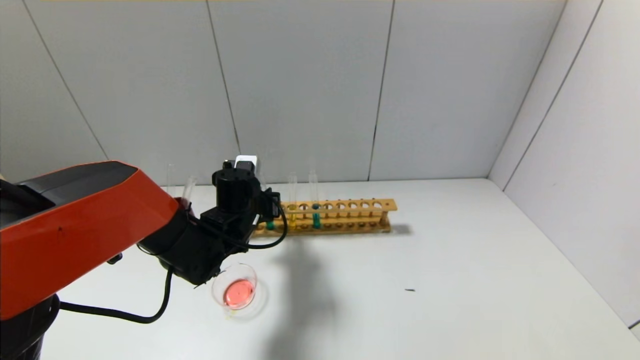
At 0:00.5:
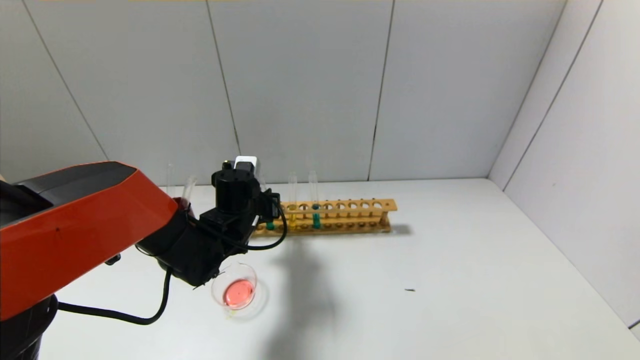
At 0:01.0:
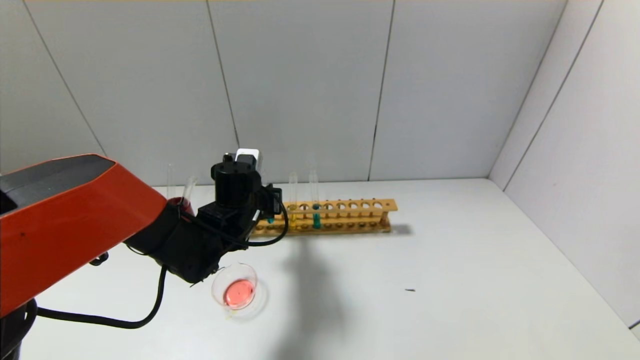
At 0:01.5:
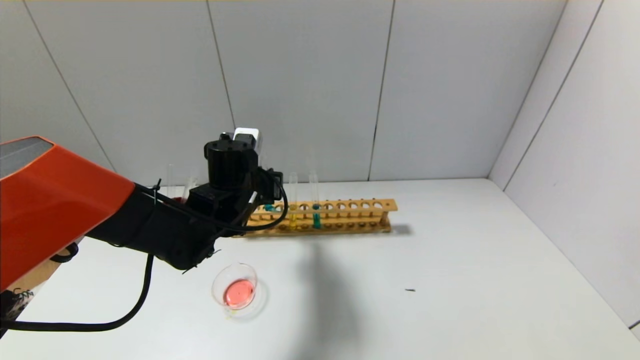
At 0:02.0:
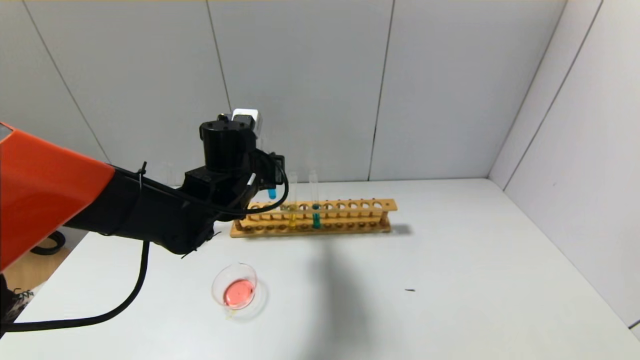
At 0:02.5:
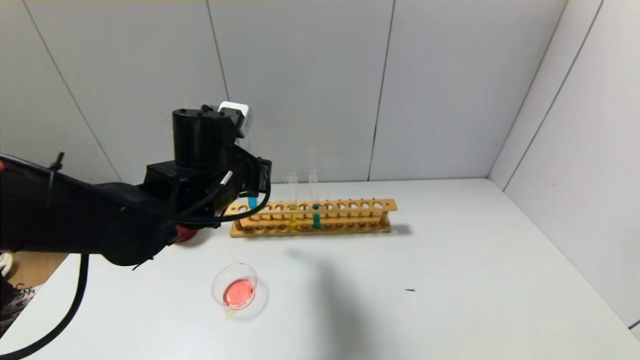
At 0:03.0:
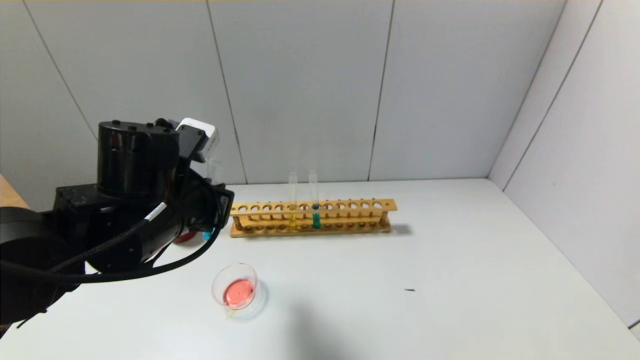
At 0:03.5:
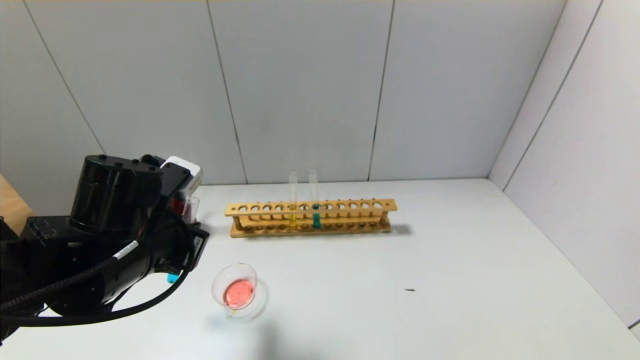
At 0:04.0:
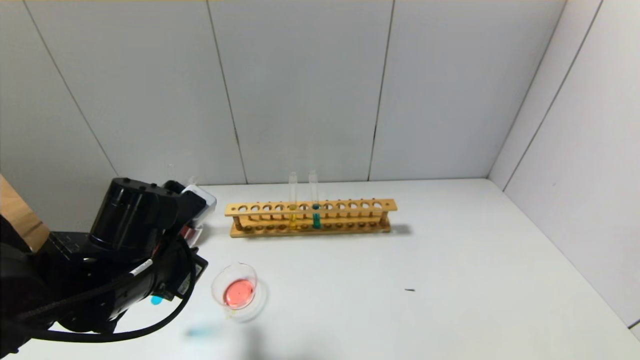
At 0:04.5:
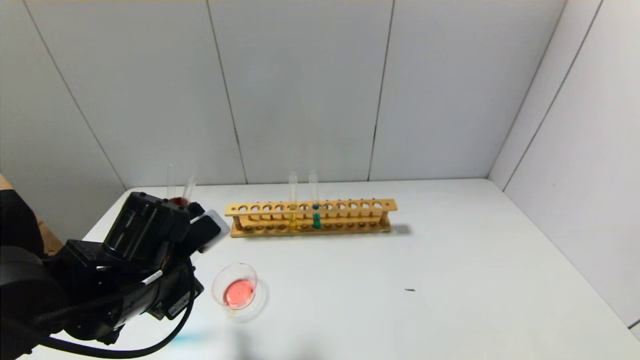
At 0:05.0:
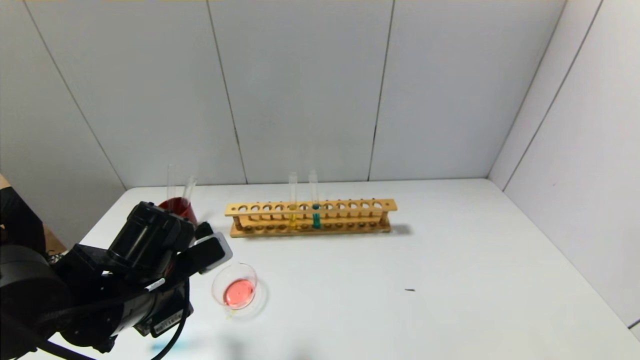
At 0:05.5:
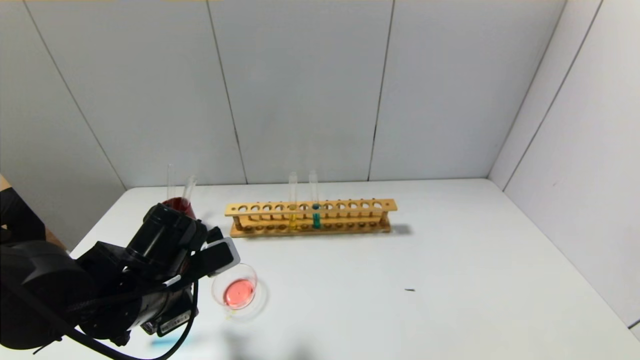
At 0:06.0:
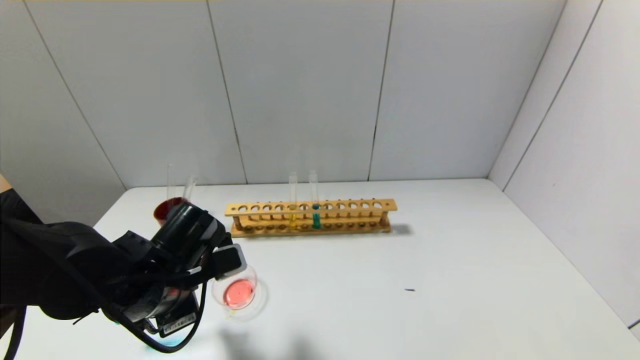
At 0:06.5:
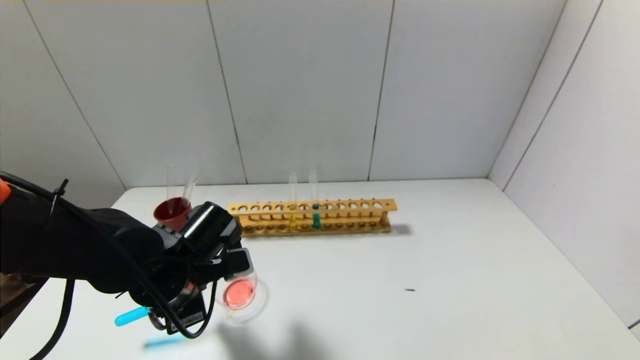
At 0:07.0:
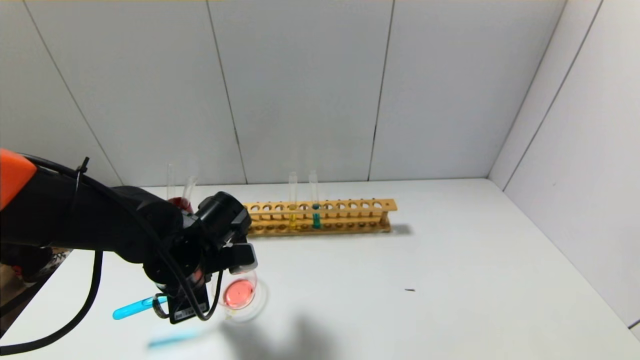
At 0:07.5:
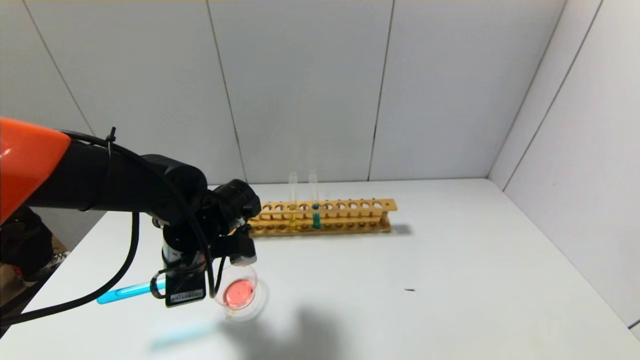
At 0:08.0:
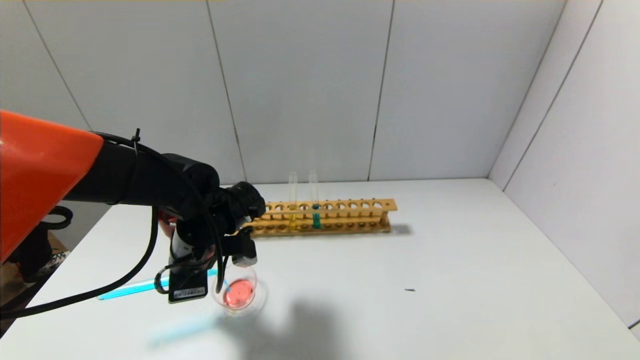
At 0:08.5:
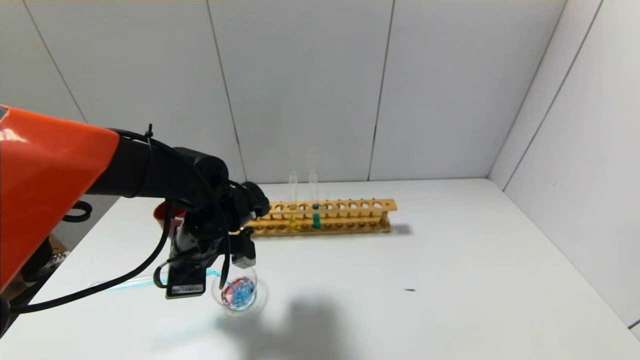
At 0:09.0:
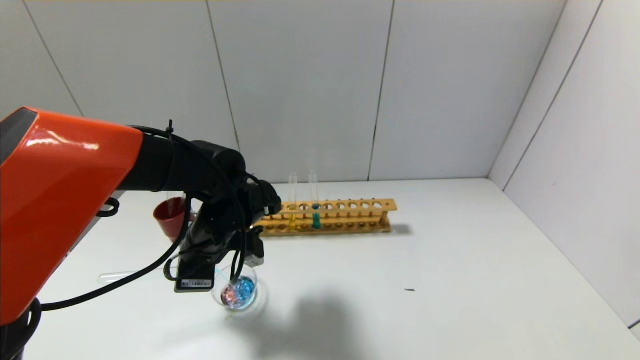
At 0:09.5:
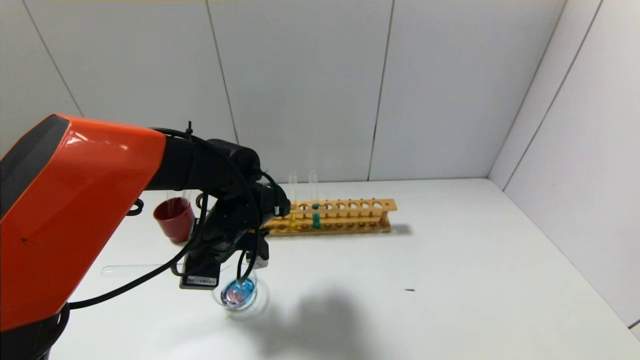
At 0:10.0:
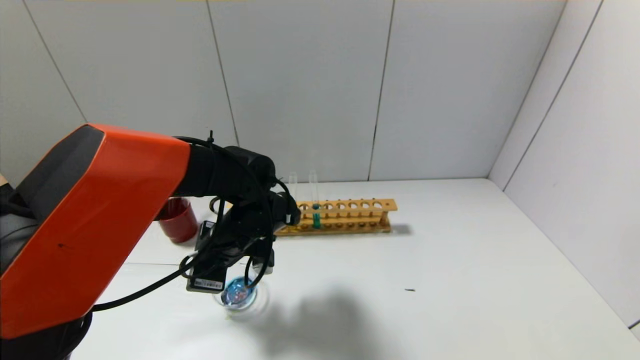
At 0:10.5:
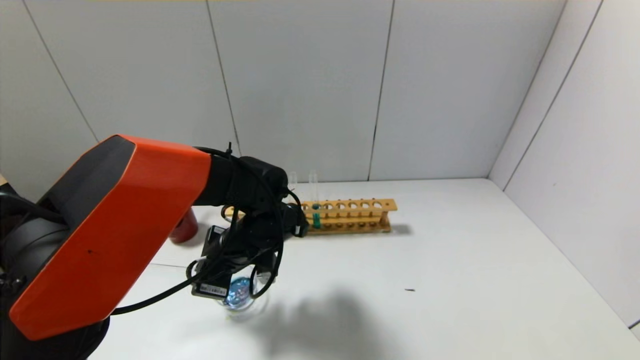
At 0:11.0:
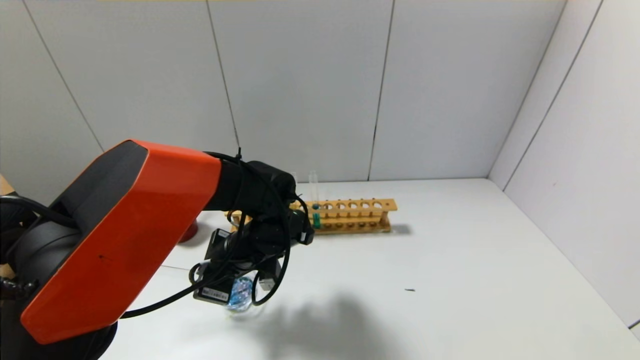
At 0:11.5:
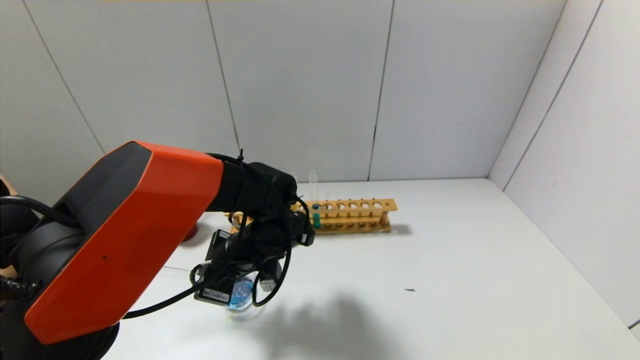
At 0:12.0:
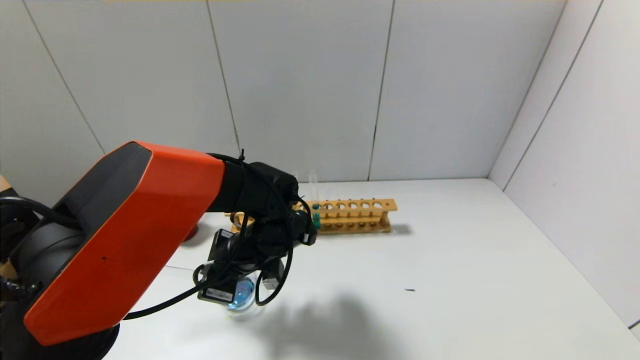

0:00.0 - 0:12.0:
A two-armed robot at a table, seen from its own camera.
0:00.0 - 0:02.0: The left gripper moves upward, roughly 10 cm.
0:02.0 - 0:04.0: The left gripper is displaced backward and to the left by approximately 15 cm.
0:06.0 - 0:08.0: The left gripper is displaced forward by roughly 5 cm.
0:10.0 - 0:12.0: The grippers move only a little.

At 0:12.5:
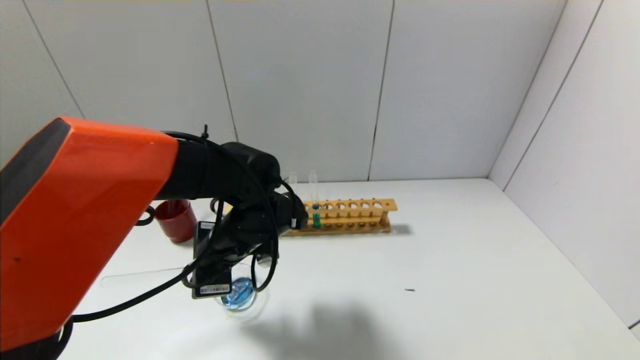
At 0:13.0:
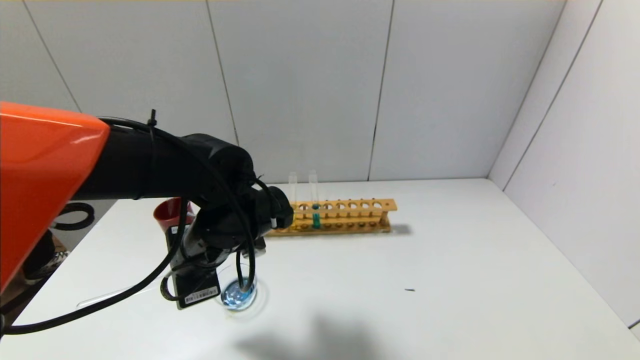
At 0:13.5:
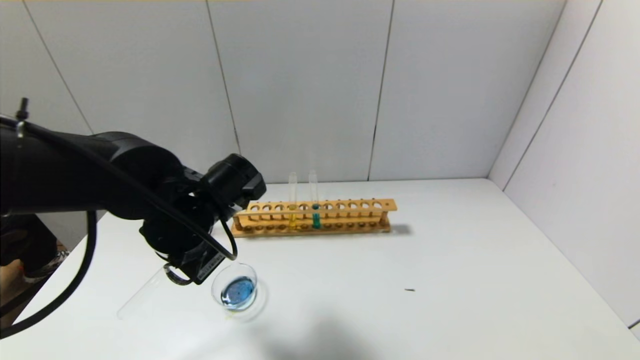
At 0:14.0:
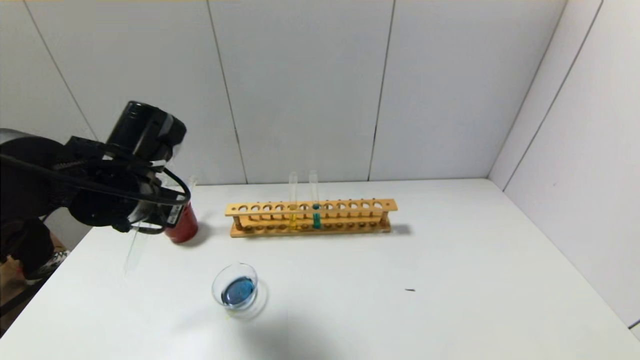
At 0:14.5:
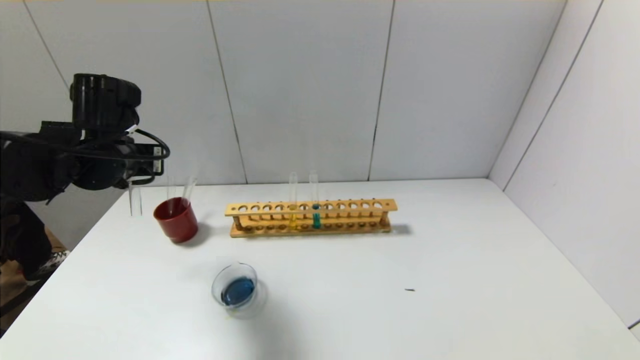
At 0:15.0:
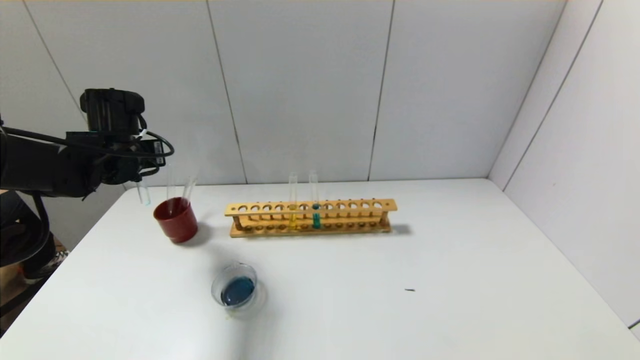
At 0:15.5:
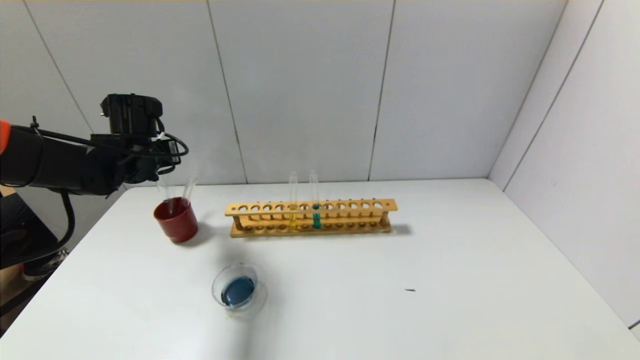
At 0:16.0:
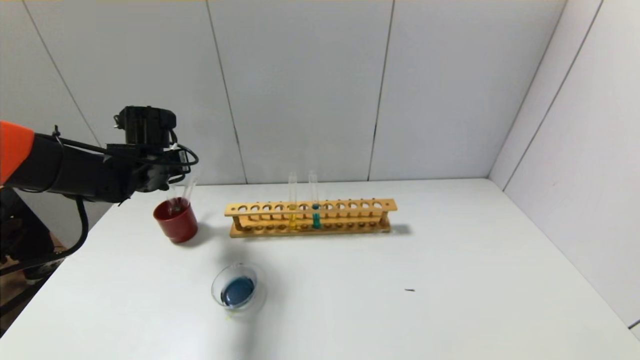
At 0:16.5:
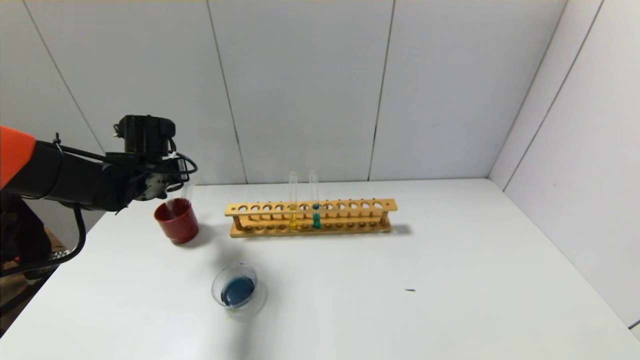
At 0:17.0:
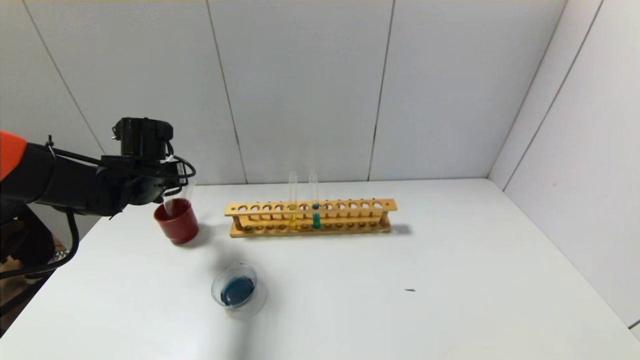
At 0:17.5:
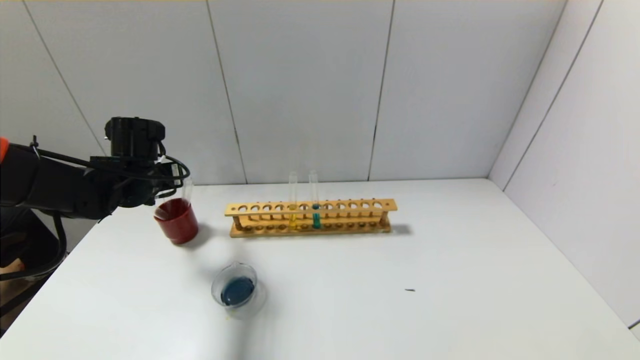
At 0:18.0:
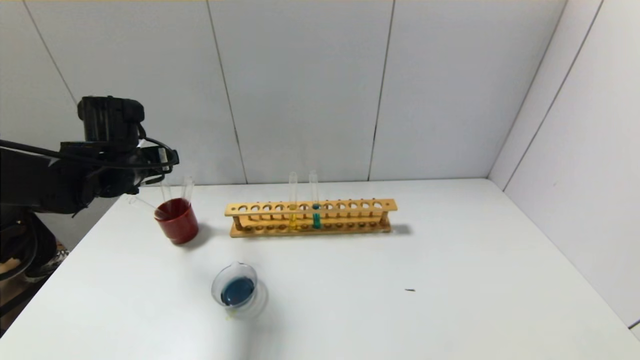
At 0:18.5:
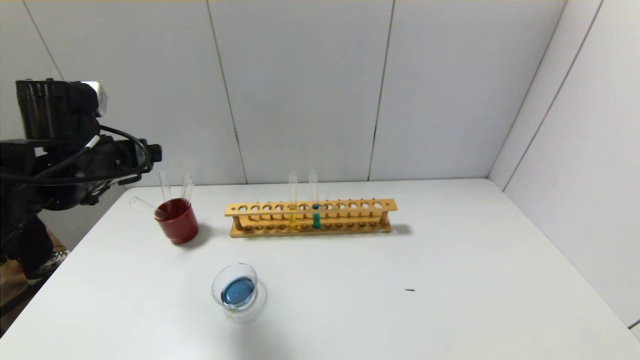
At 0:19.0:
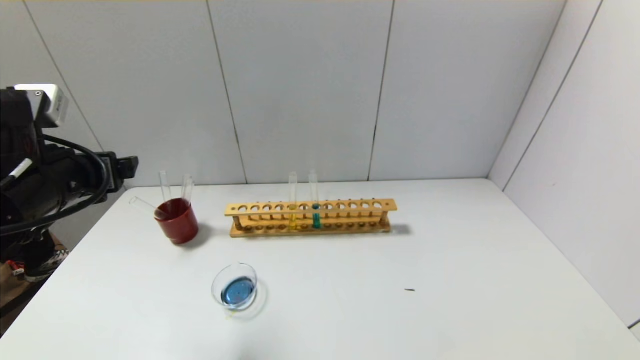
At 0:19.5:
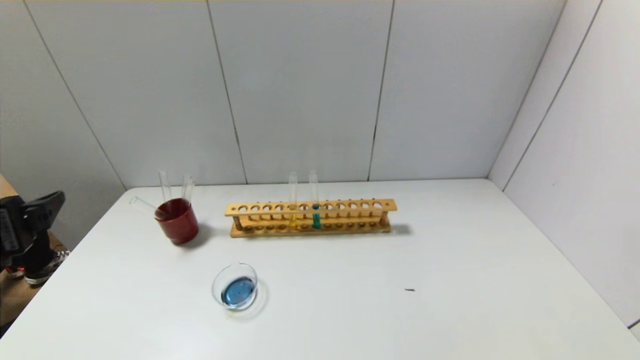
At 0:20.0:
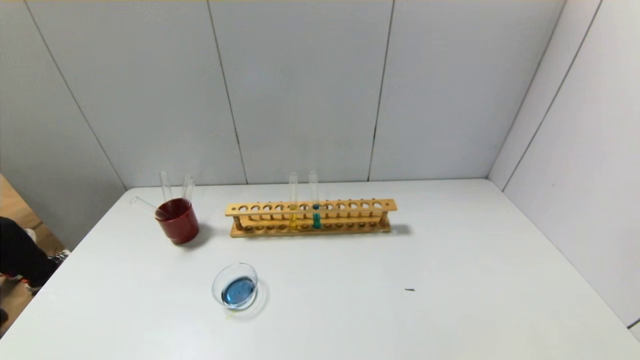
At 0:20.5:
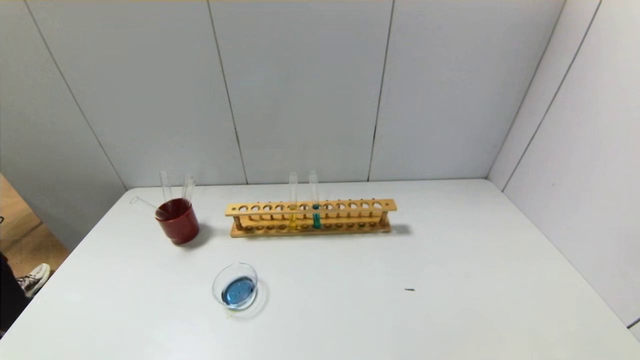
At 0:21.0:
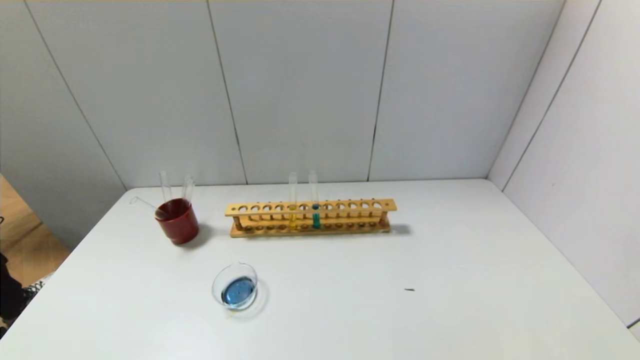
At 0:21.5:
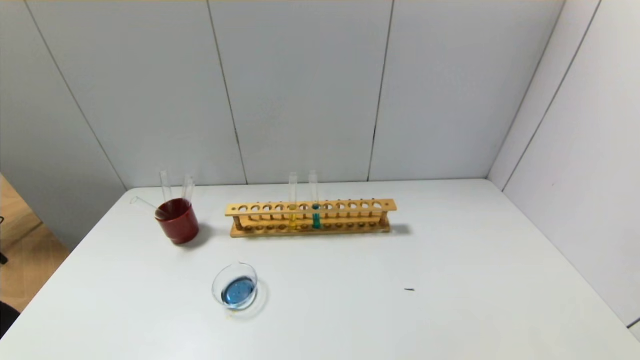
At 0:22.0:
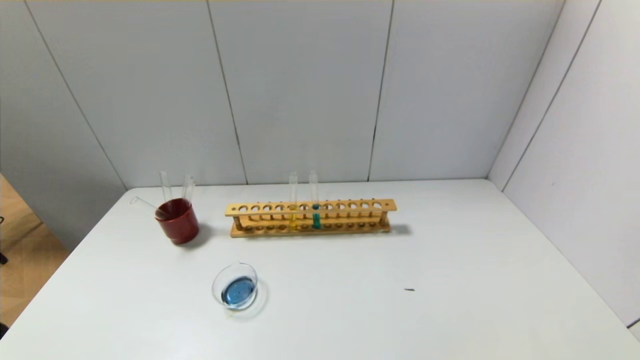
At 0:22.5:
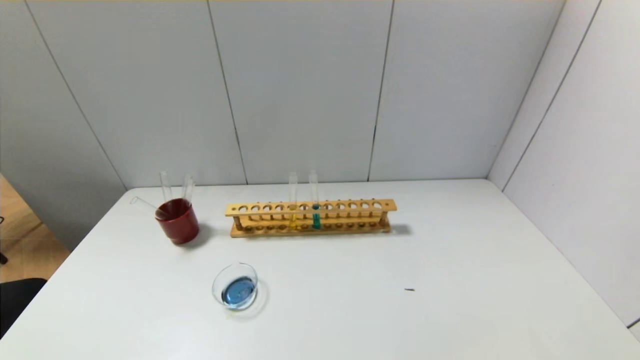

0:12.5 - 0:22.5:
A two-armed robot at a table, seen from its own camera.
Step, 0:13.0 - 0:17.0: Place the test tube into the brown cup with the left gripper.
0:12.5 - 0:14.5: The left gripper moves to the left and upward, about 20 cm.
0:14.5 - 0:16.5: The left gripper goes about 10 cm downward and forward.
0:16.5 - 0:18.5: The left gripper heads backward and upward, covering approximately 15 cm, and opens.
0:18.5 - 0:20.5: The left gripper heads backward, covering some 30 cm.
